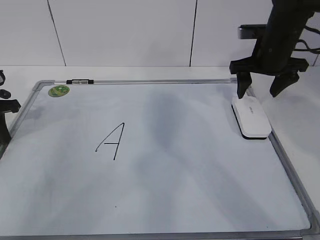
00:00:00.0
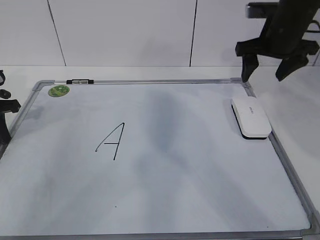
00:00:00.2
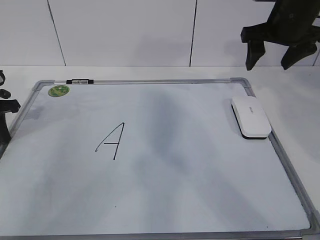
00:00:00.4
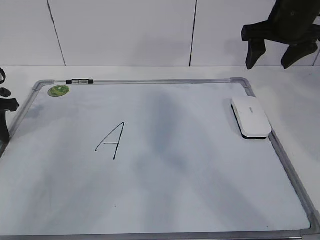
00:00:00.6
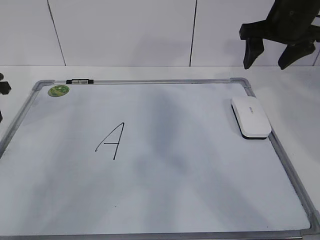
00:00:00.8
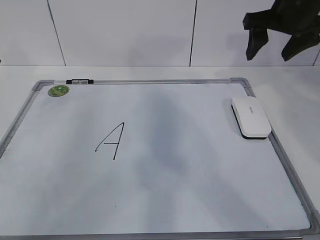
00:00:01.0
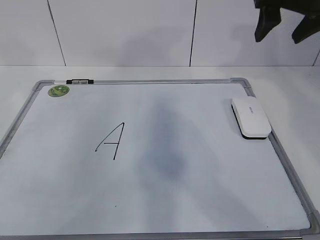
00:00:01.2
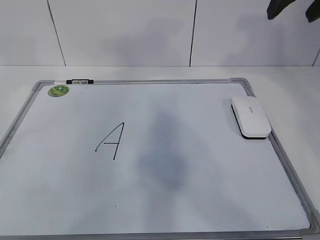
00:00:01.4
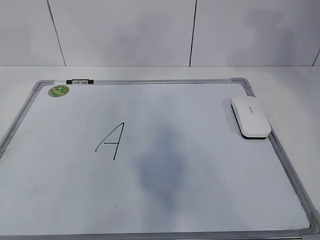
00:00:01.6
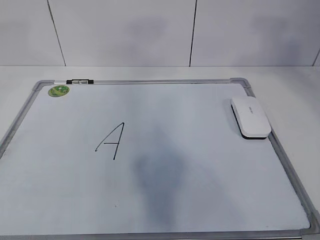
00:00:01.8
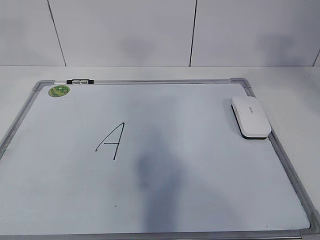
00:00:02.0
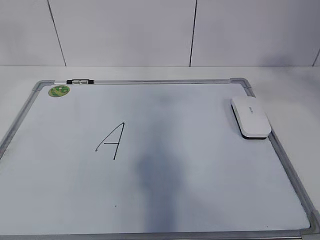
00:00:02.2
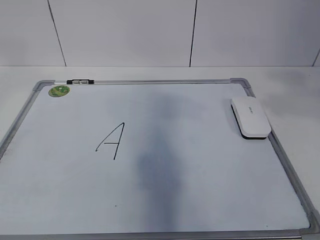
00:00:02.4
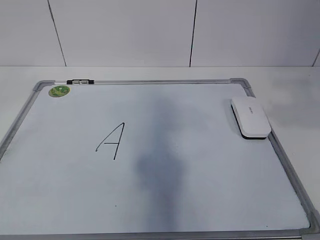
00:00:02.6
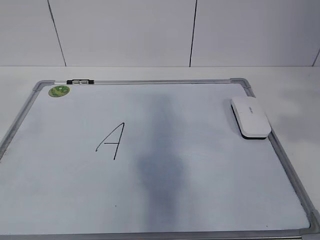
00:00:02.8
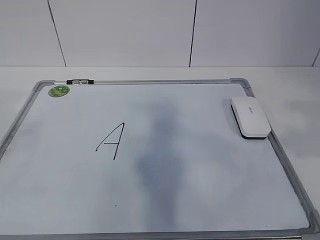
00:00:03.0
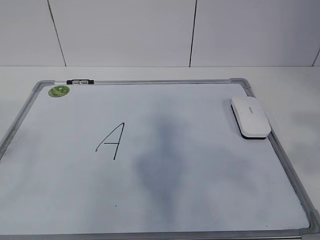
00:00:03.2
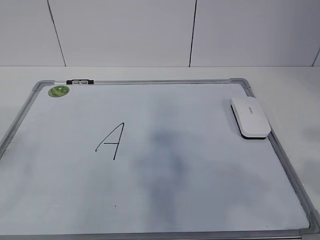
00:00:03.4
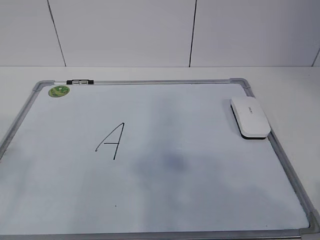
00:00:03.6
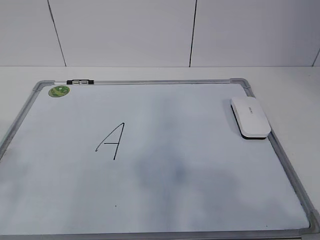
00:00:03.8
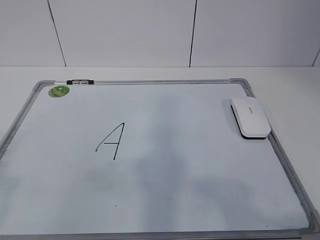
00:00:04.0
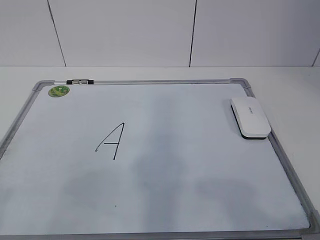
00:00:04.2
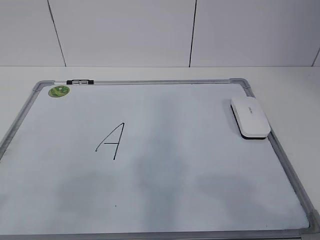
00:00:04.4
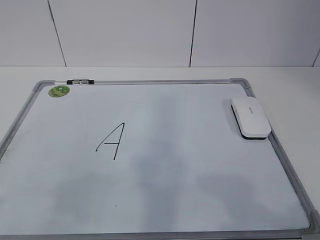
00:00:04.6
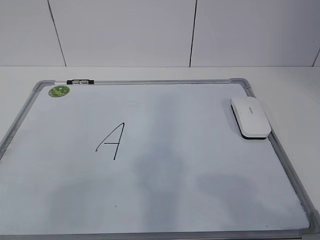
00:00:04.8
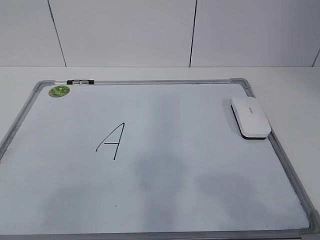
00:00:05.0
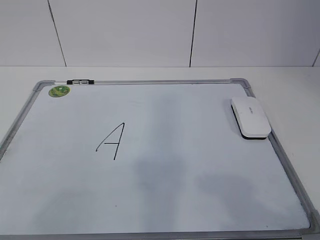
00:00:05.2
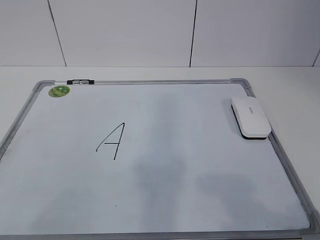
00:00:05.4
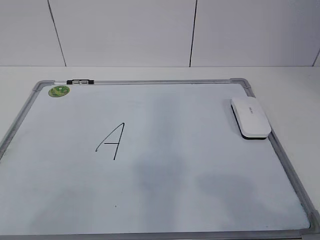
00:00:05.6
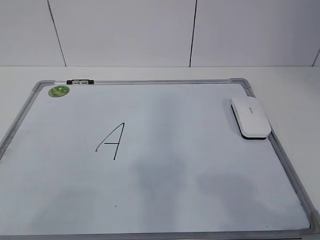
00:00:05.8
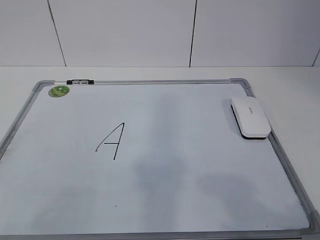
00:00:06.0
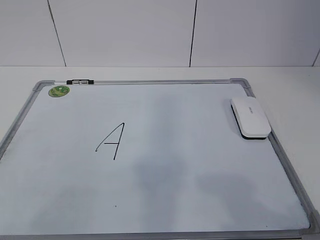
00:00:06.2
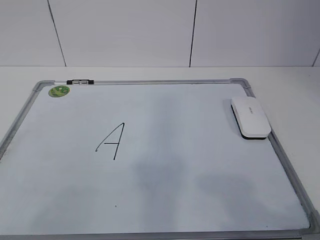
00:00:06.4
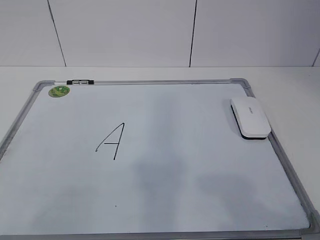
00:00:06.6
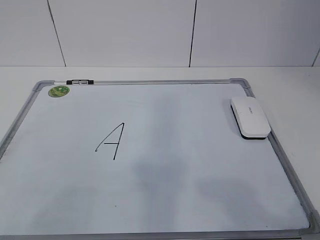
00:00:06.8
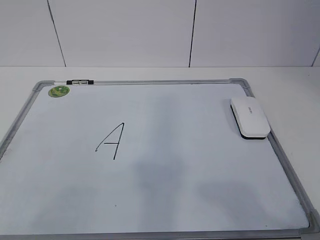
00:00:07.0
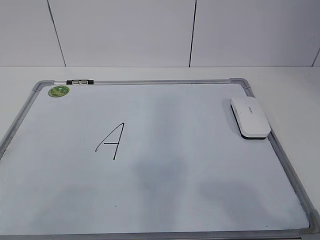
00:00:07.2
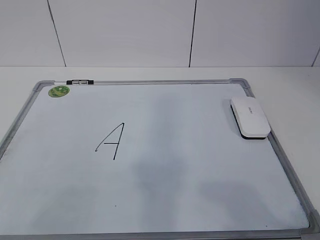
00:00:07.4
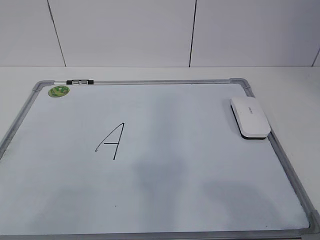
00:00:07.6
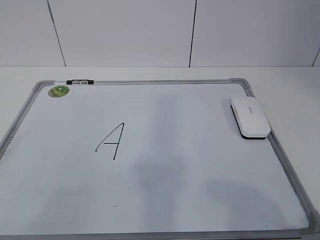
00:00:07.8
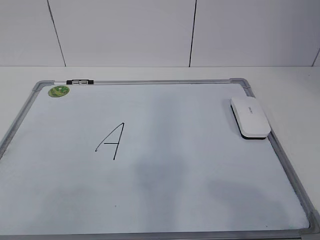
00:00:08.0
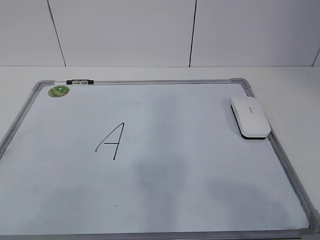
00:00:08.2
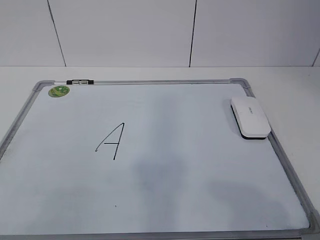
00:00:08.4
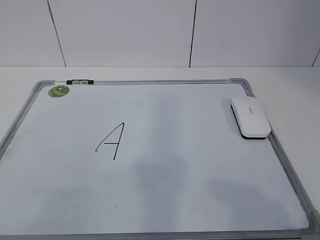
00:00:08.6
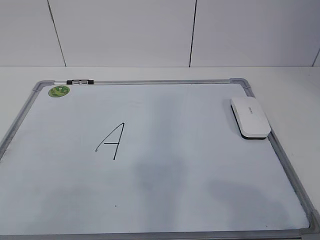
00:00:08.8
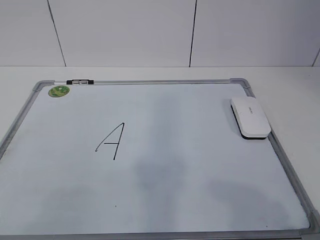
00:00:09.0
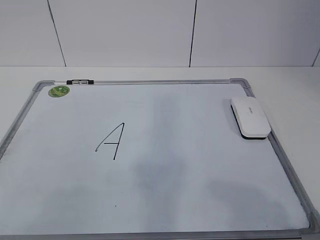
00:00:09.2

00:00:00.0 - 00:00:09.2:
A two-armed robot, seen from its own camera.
Task of the whole recording: pick up the eraser on the blackboard and erase the letter "a".
00:00:00.0 - 00:00:01.6: The right gripper heads upward and backward, covering about 25 cm, and closes. The left gripper travels upward by some 25 cm, and opens its fingers.
00:00:01.6 - 00:00:03.0: Both grippers move backward, some 25 cm.
00:00:03.0 - 00:00:04.6: The right gripper goes approximately 15 cm downward and backward; the left gripper goes approximately 15 cm downward.
